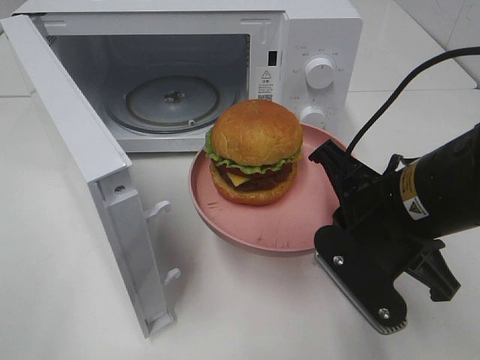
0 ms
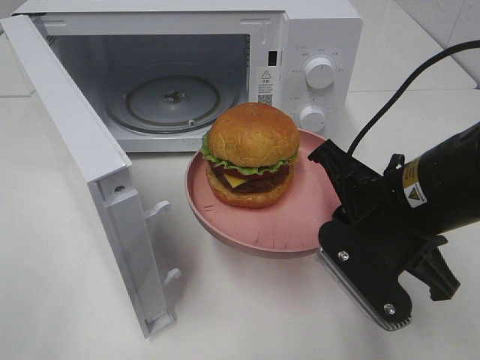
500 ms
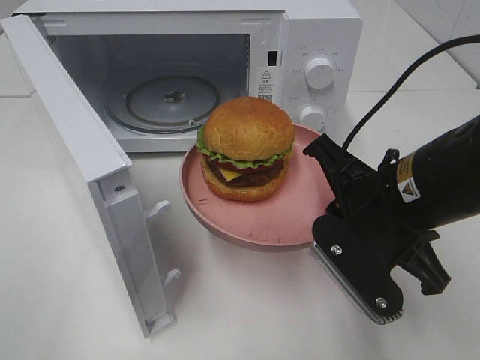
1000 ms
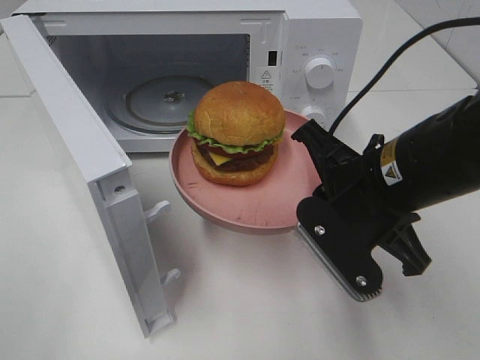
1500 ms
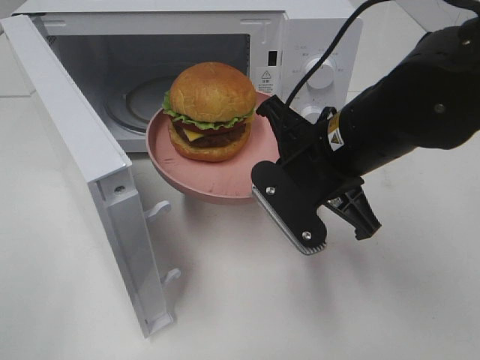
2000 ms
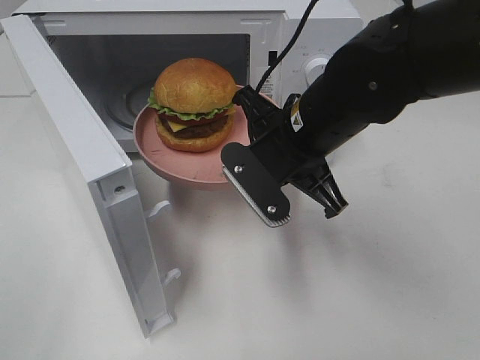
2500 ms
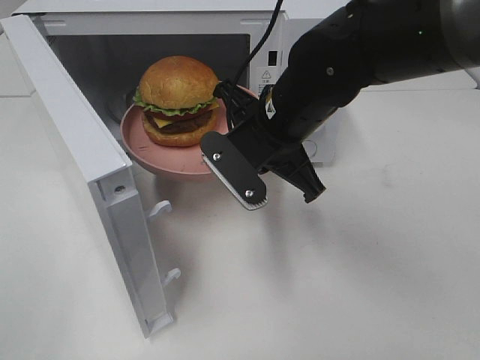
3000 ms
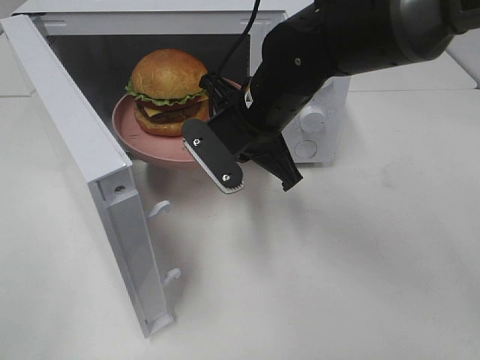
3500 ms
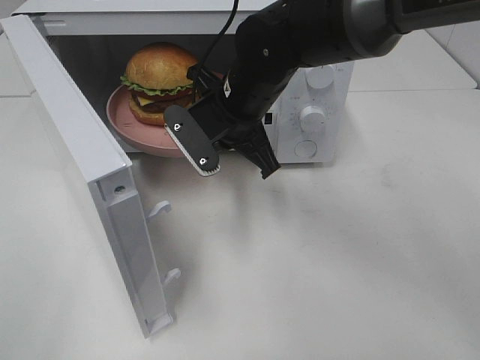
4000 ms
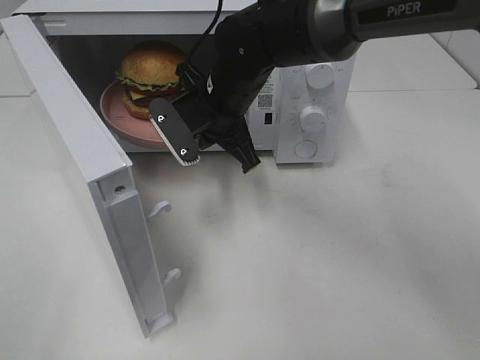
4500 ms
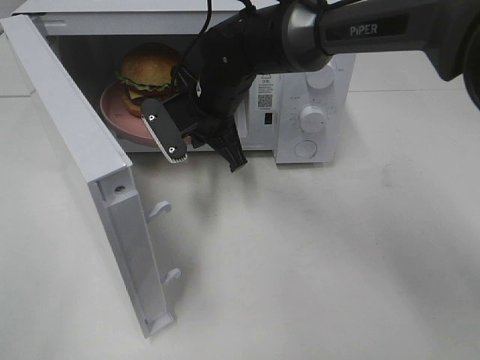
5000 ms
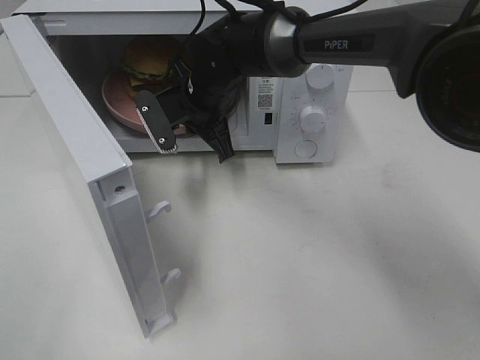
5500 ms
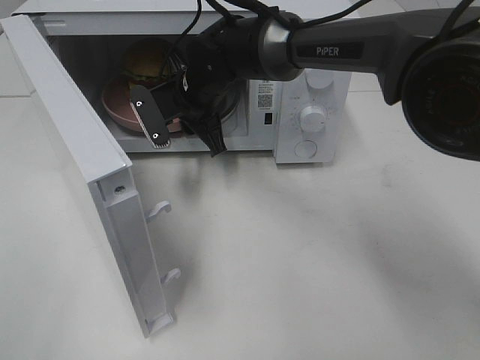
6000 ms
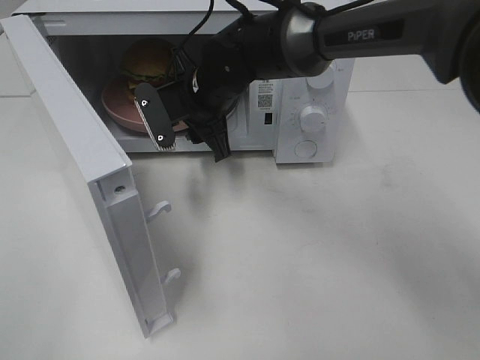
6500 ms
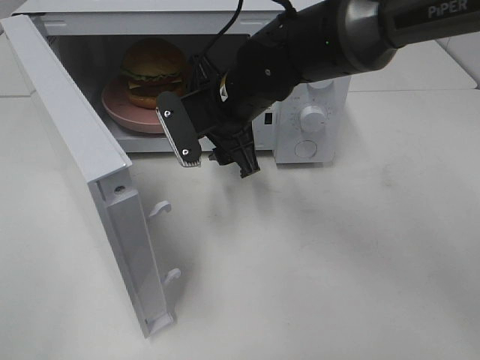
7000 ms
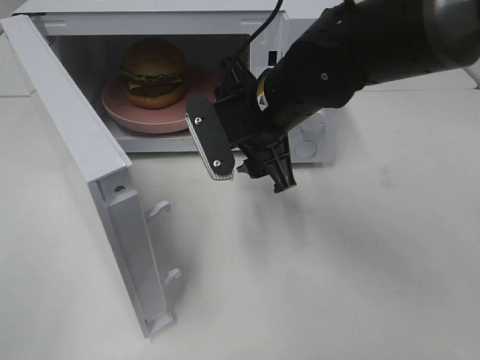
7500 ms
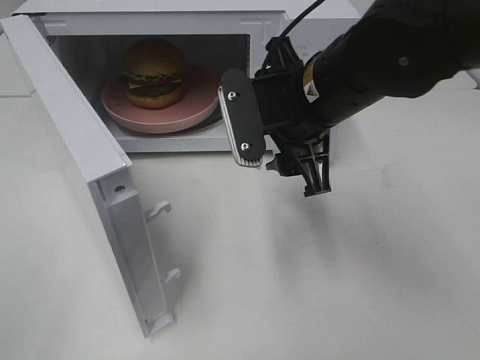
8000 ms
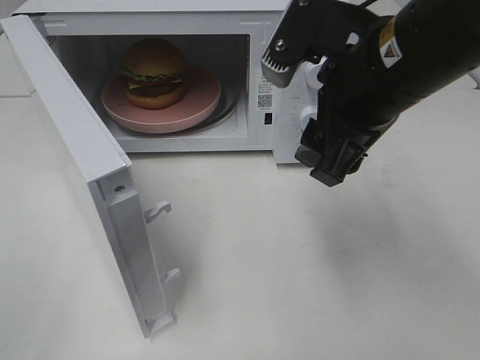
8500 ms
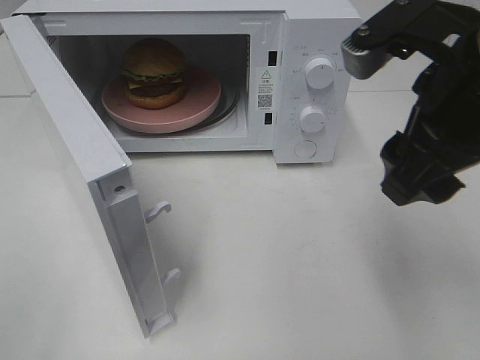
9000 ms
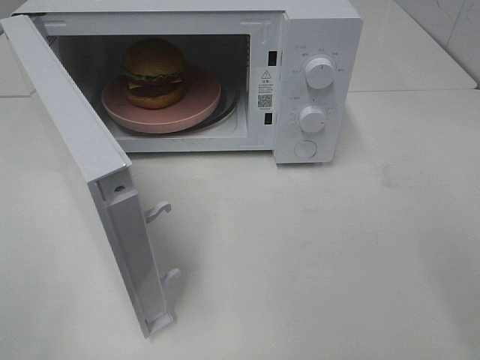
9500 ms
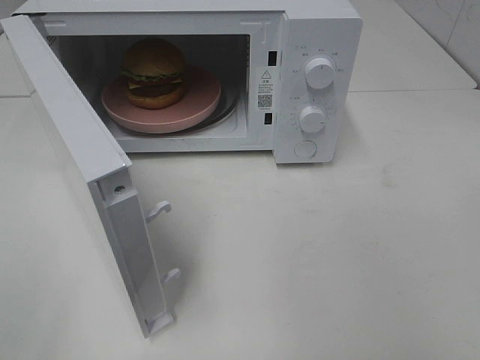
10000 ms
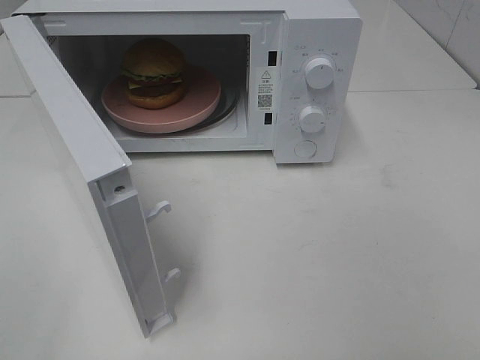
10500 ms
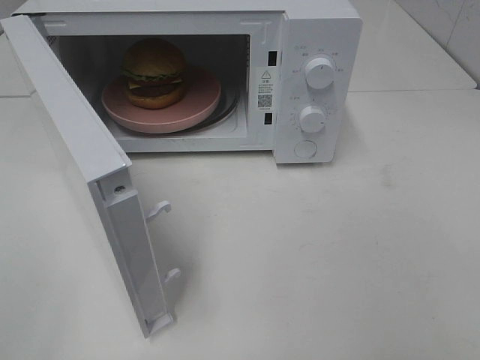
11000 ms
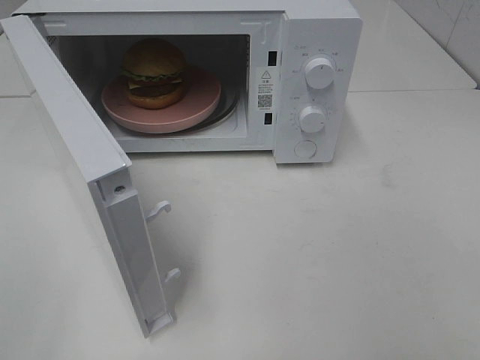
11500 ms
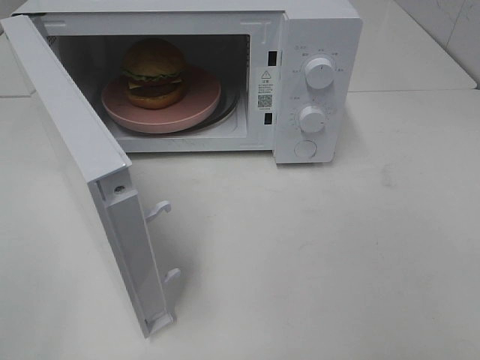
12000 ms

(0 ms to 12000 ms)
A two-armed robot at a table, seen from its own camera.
Task of the whole recording: Heat the burger.
Step, 0 ms - 6500 ms: Right hand: place the plate in the microwave.
0 ms - 2000 ms: The right gripper is displaced forward by some 5 cm.
2000 ms - 4000 ms: The right gripper is displaced forward and to the left by some 15 cm.
4000 ms - 6000 ms: The right gripper goes roughly 10 cm forward and to the left, and opens up.
6000 ms - 8000 ms: The right gripper moves backward, to the right and upward, roughly 20 cm, and opens up.
8000 ms - 10000 ms: The right gripper heads backward, to the right and upward, covering roughly 30 cm.

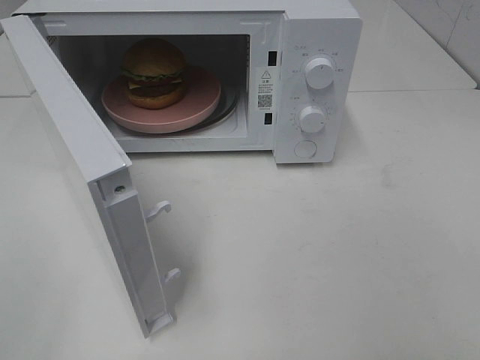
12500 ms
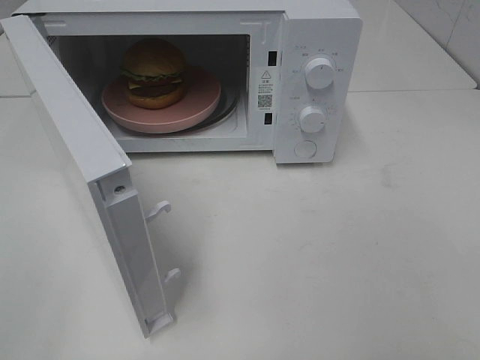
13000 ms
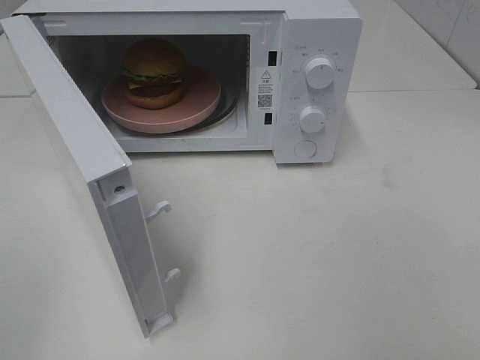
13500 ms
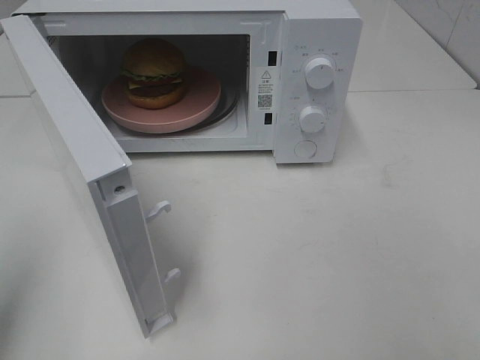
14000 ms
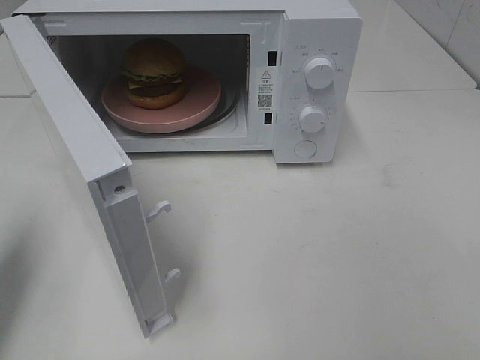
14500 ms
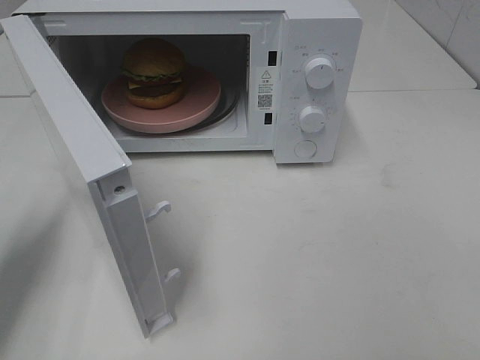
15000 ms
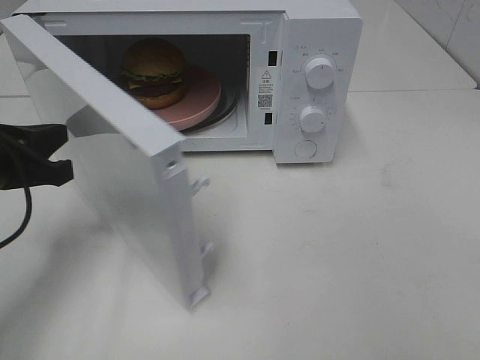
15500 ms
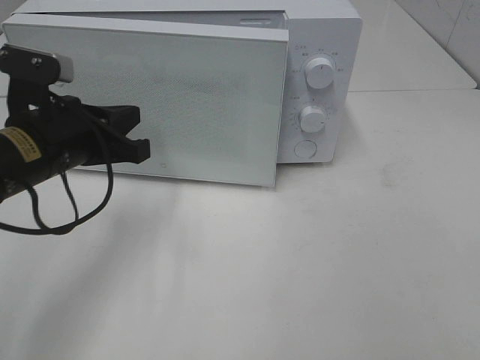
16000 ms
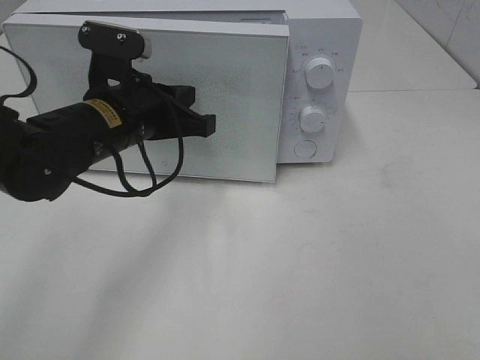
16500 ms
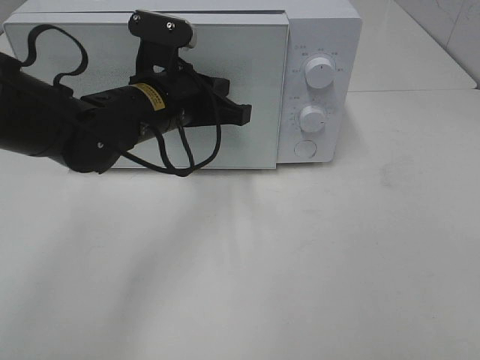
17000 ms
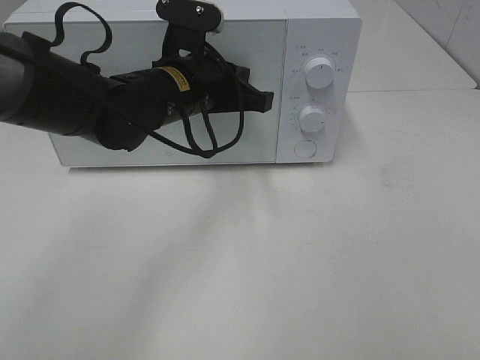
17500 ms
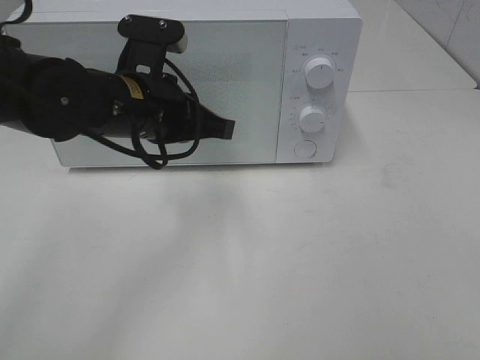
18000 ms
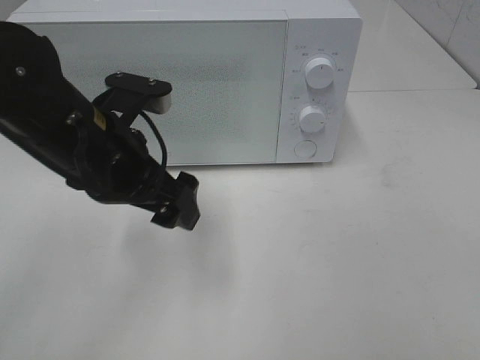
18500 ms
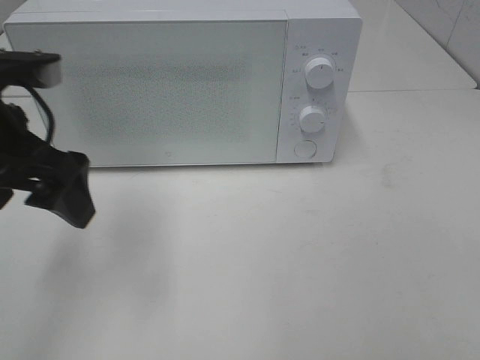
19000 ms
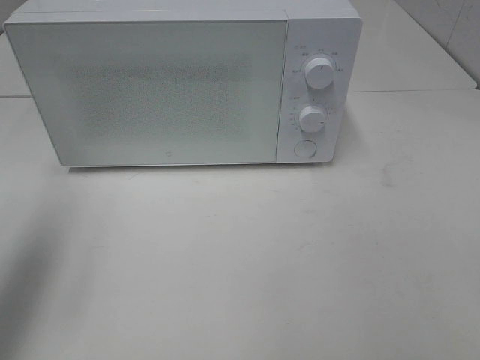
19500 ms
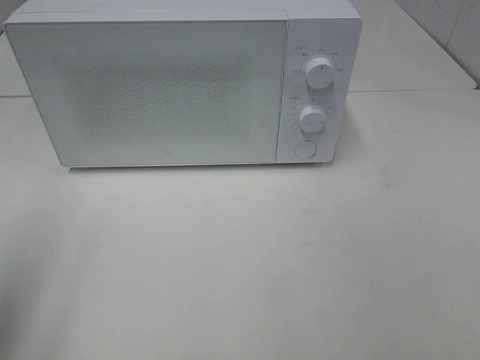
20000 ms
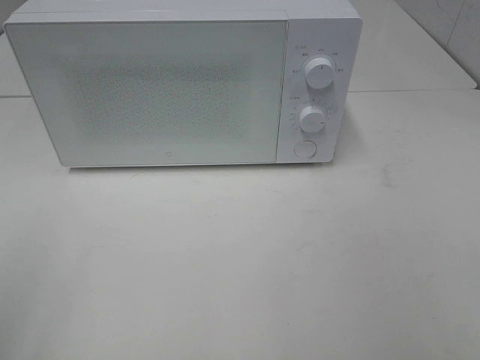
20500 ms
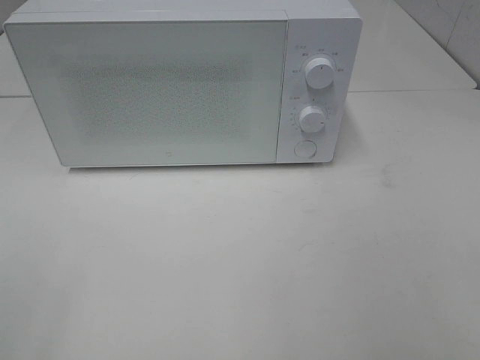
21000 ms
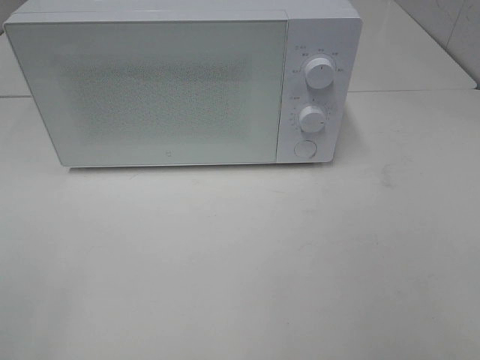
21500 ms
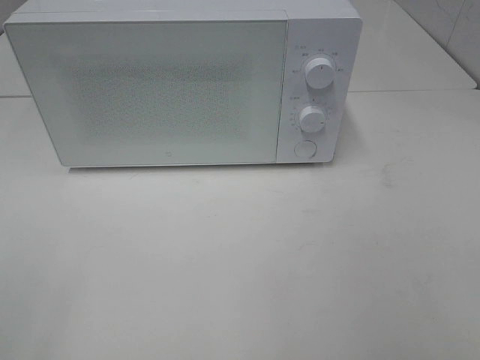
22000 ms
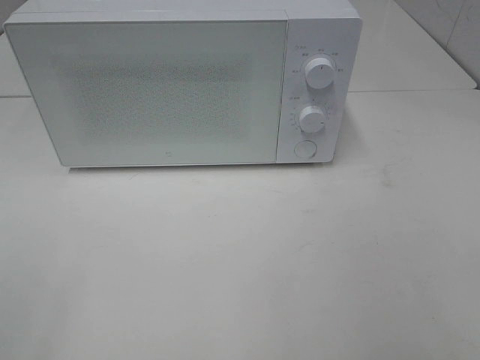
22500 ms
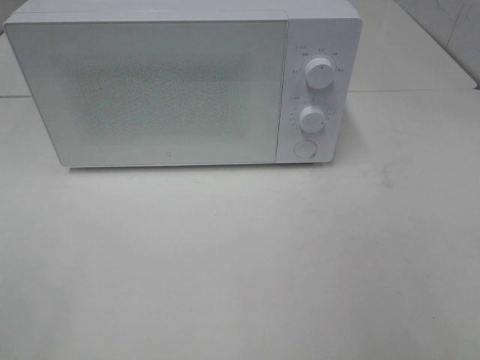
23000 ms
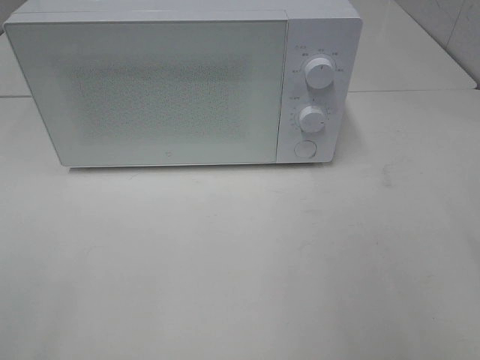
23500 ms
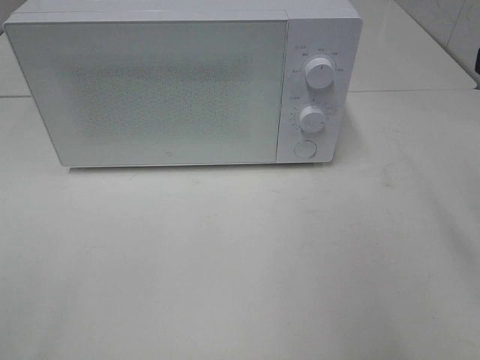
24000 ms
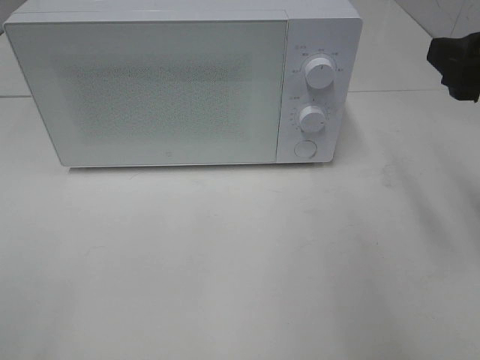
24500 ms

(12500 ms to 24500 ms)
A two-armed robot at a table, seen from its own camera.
Task of the whole recording: Heat the burger.
Step, 12500 ms - 18000 ms: Left hand: close the microwave door.
12500 ms - 14500 ms: The left gripper travels forward by approximately 20 cm, and closes.
14500 ms - 16500 ms: The left gripper goes about 25 cm to the right and forward.
16500 ms - 18500 ms: The left gripper moves backward, approximately 5 cm, and opens its fingers.
18500 ms - 20500 ms: The left gripper travels backward, to the left and upward by some 30 cm.
22500 ms - 24500 ms: The right gripper travels forward by some 20 cm.

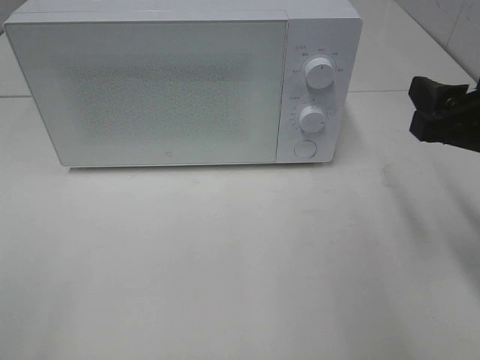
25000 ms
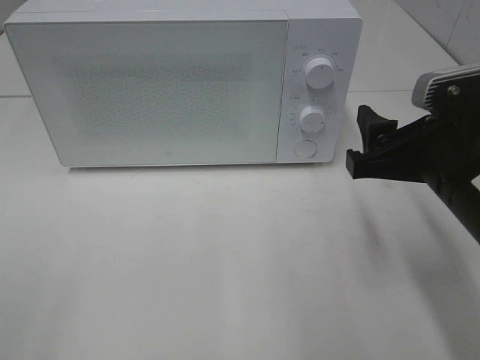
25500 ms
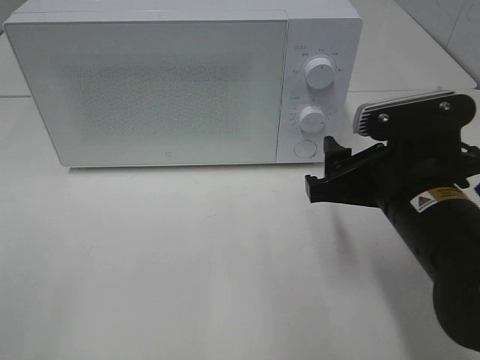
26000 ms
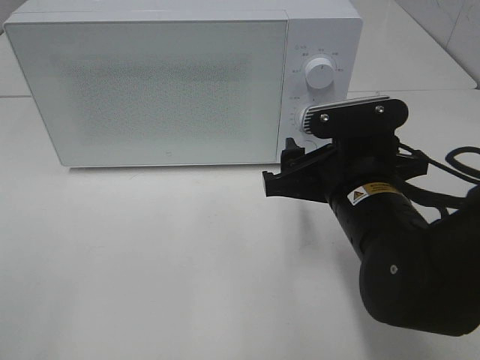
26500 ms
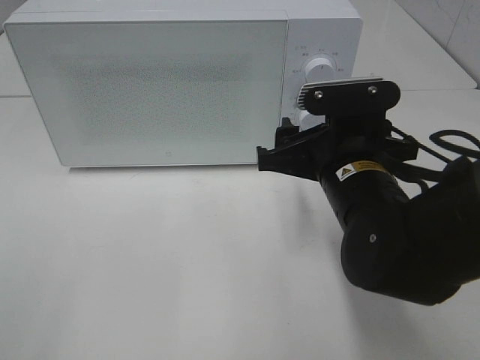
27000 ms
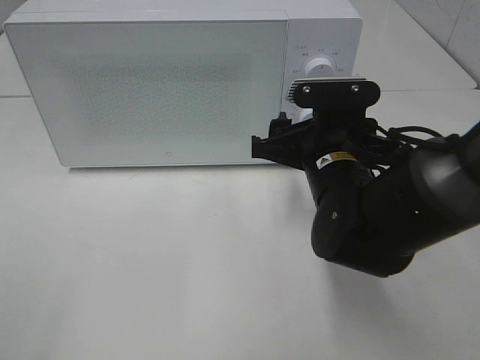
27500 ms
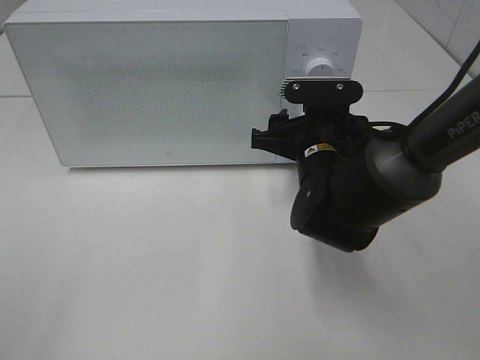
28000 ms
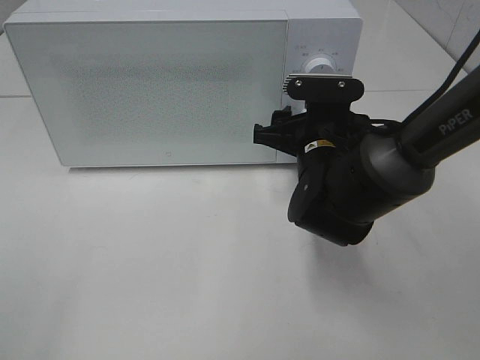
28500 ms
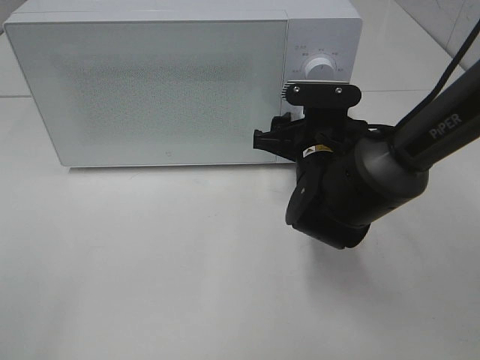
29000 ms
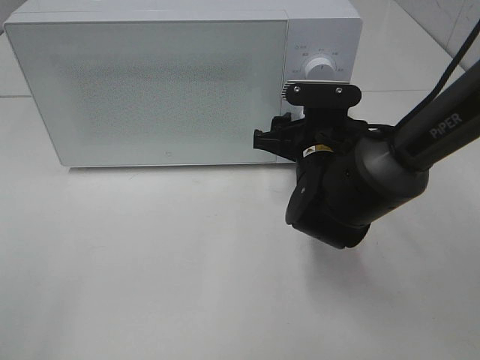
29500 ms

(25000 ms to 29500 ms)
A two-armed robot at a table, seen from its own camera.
Task of the whole recording: Heat the burger.
25000 ms - 27000 ms: The right gripper travels to the left and downward by roughly 15 cm.
27000 ms - 29500 ms: The right gripper heads forward, covering about 10 cm.
